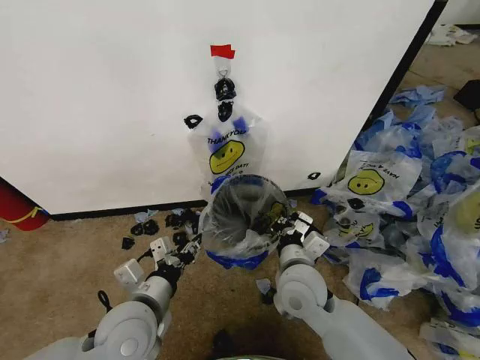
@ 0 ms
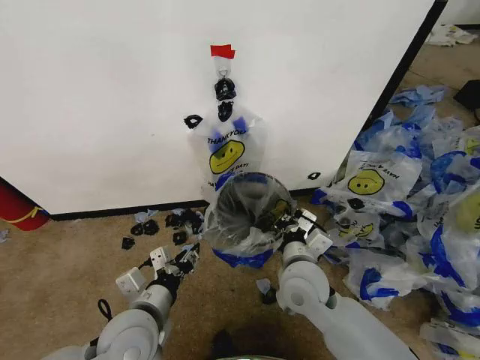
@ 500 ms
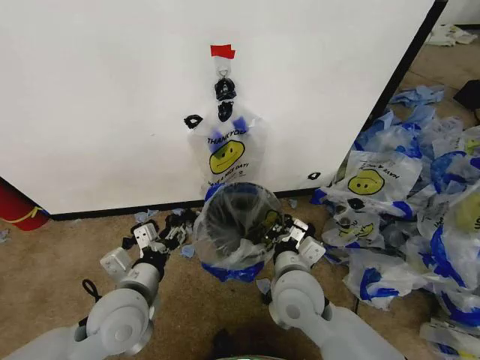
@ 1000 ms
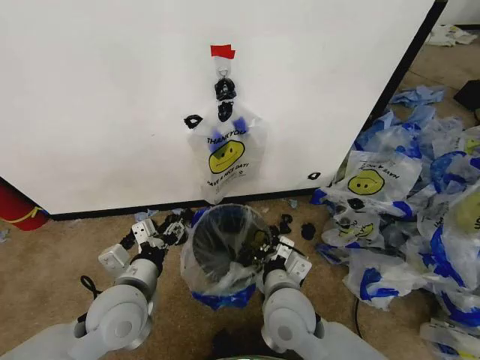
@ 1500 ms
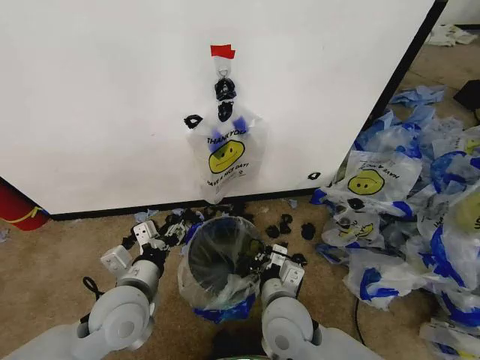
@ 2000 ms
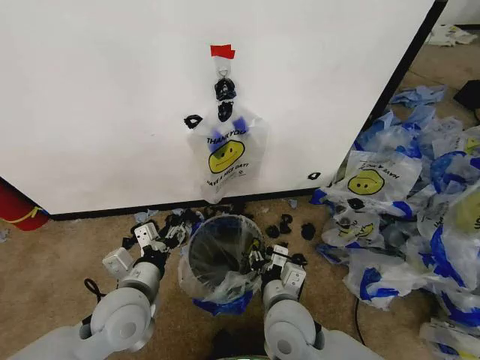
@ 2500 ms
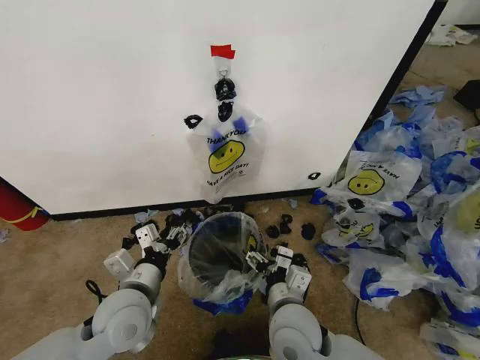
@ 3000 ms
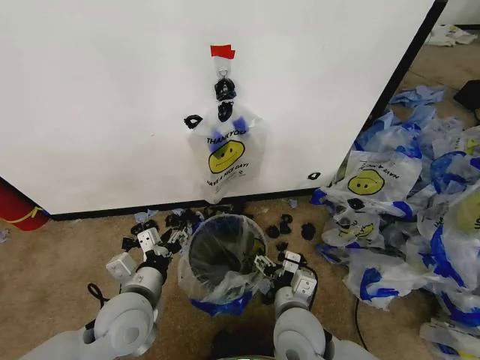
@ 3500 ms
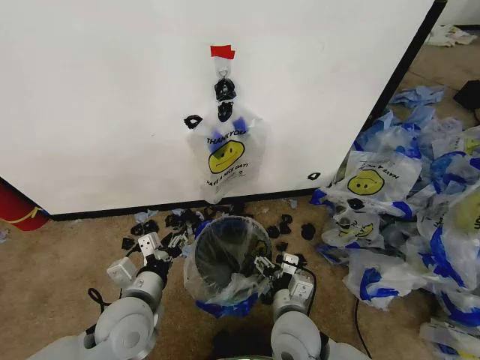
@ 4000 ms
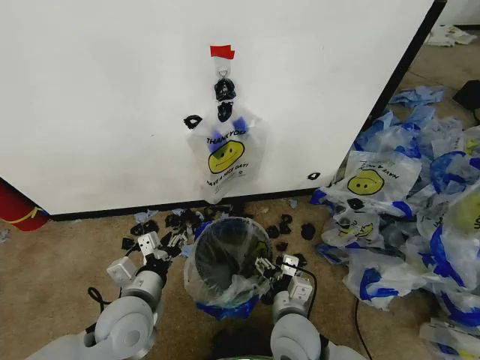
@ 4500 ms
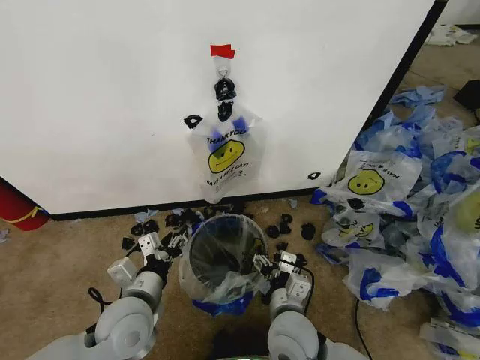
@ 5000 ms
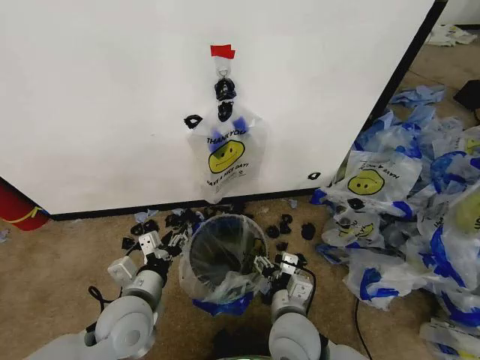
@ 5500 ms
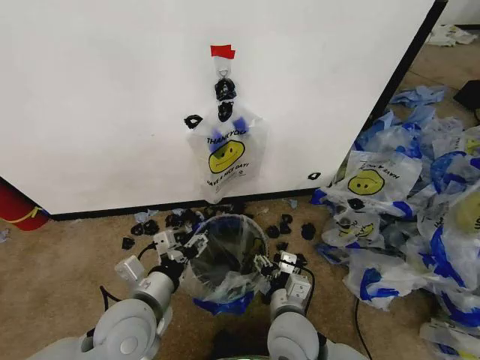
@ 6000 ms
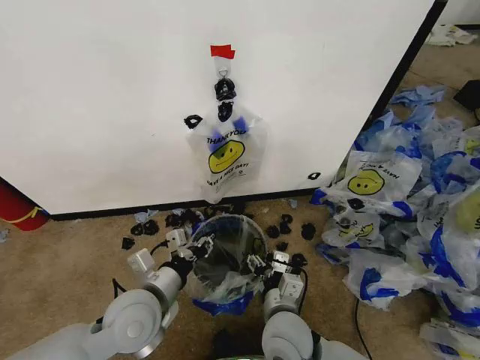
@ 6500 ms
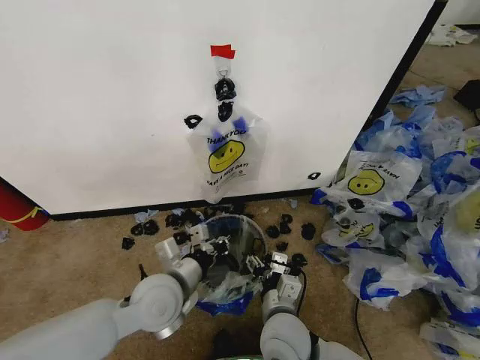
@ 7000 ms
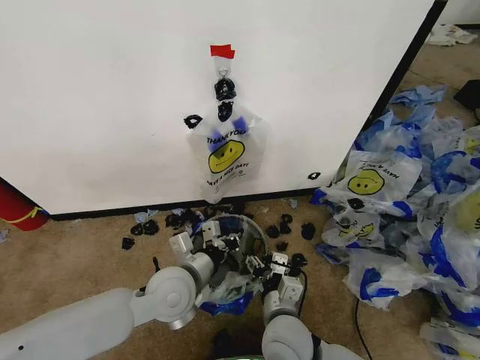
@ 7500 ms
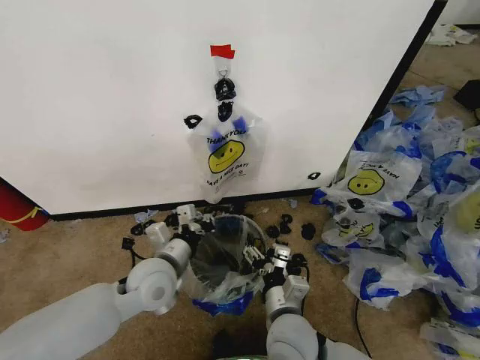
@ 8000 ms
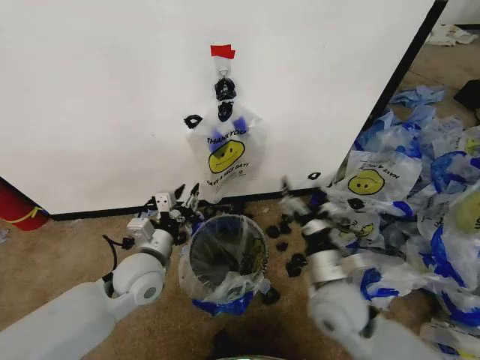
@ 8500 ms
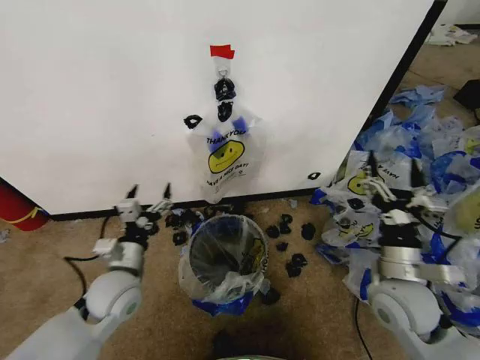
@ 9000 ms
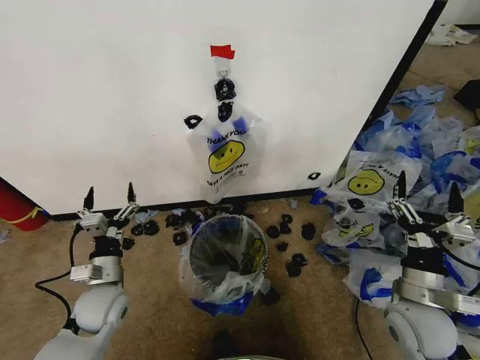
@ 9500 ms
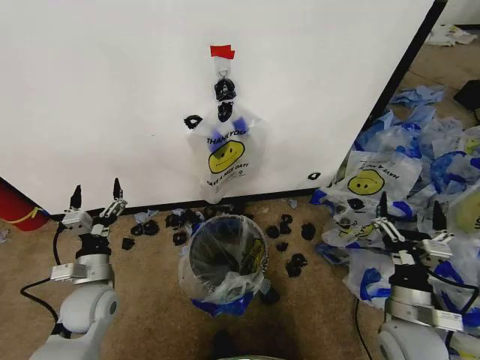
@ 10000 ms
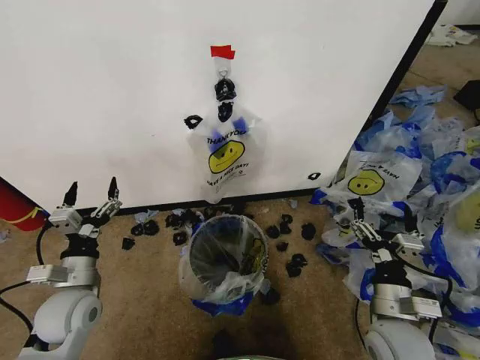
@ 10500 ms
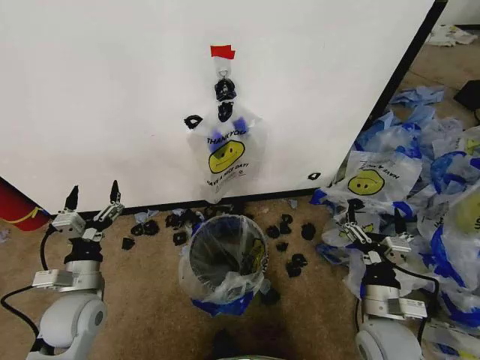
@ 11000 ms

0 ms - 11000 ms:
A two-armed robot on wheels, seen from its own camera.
Task of the whole recording: Pick up the garbage bag from the wall and place it over the trash bin.
0 ms - 2000 ms: The right gripper is displaced backward by some 5 cm.
2000 ms - 3500 ms: The right gripper opens up.
3500 ms - 5500 ms: The grippers make only small movements.
5500 ms - 7500 ms: The left gripper shifts some 10 cm to the right, and closes.
7500 ms - 9000 ms: The right gripper travels to the right by approximately 20 cm. The left gripper heads to the left, covering roughly 10 cm, and opens.
9000 ms - 11000 ms: The left gripper heads to the left, covering some 5 cm, while the right gripper is displaced downward by about 5 cm.
